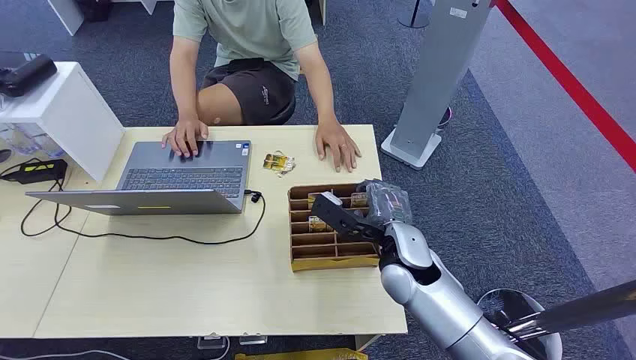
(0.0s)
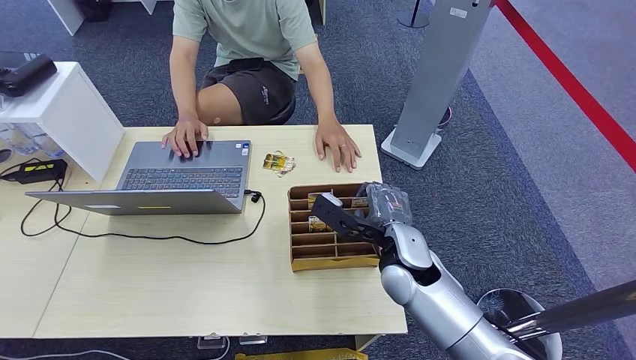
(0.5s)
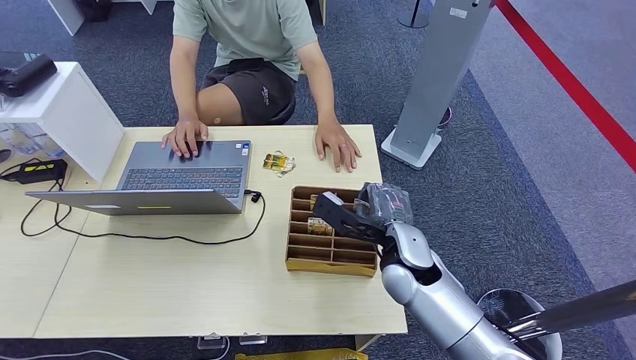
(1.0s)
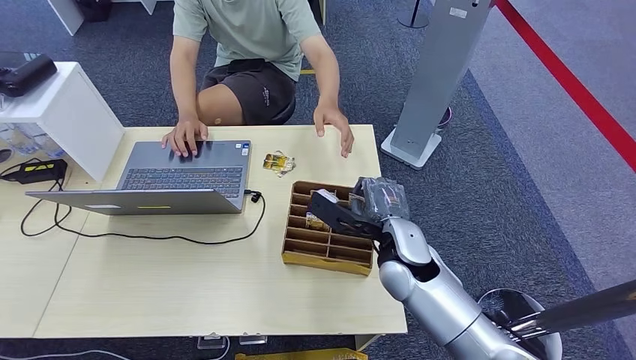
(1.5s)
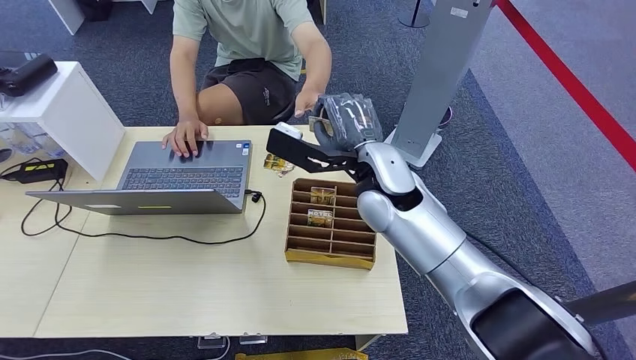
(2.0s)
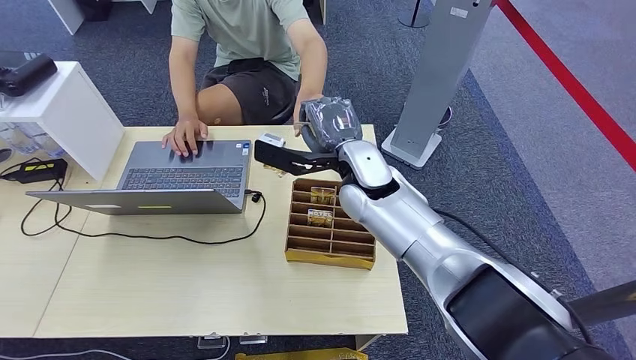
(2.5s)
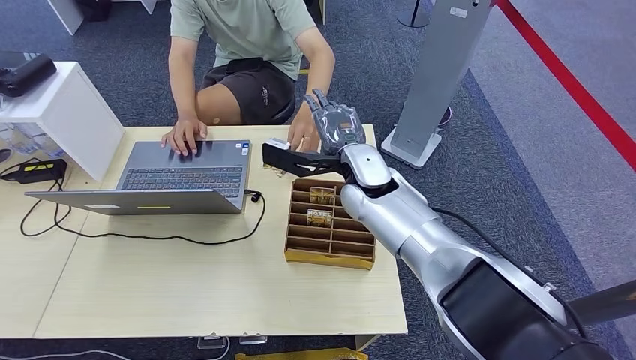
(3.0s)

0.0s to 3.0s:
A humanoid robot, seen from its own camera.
Step, 0.0s to 1.5s: Pick up the key card from the card box.
Step, 2.0s to 3.0s: Hand the key card to the target.
1.5s to 3.0s: The right hand goes about 15 cm forward, upward and to the left.

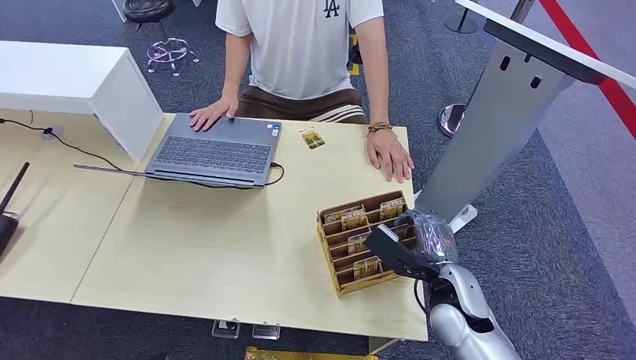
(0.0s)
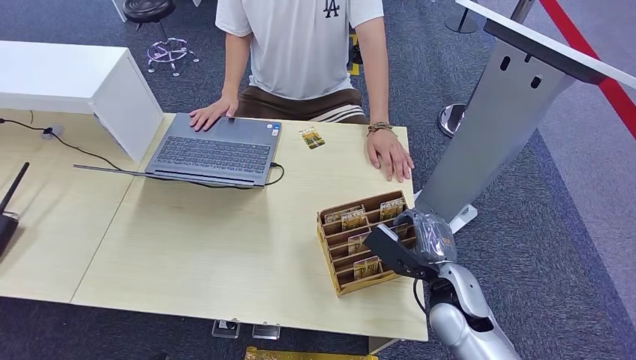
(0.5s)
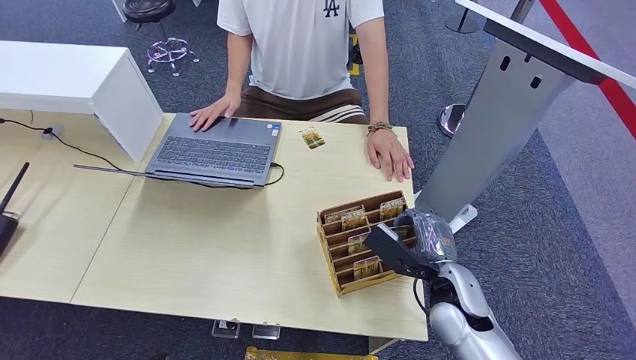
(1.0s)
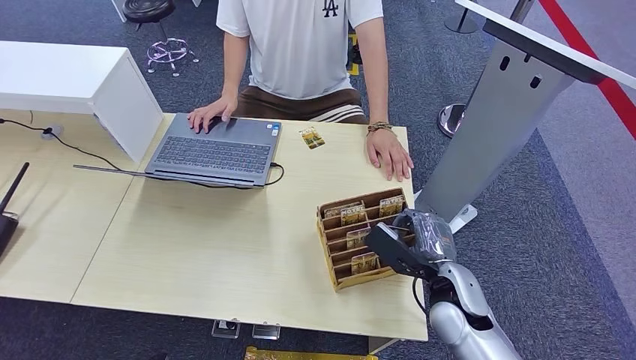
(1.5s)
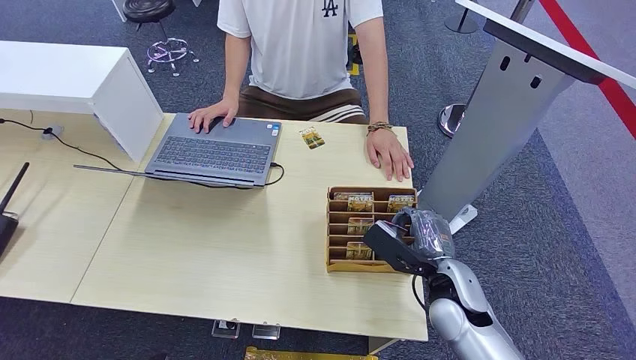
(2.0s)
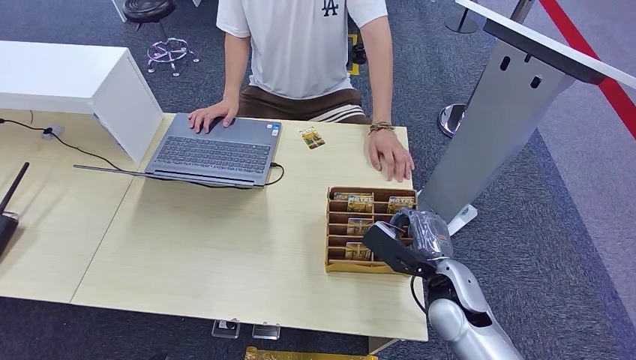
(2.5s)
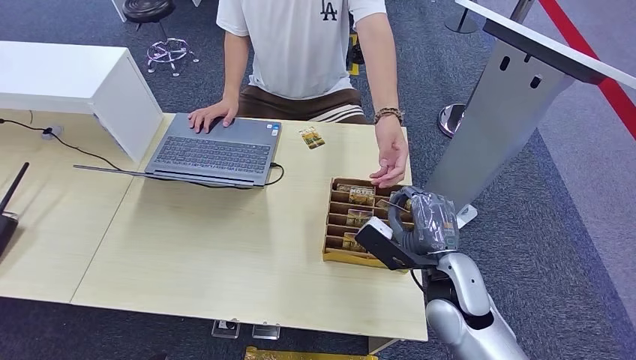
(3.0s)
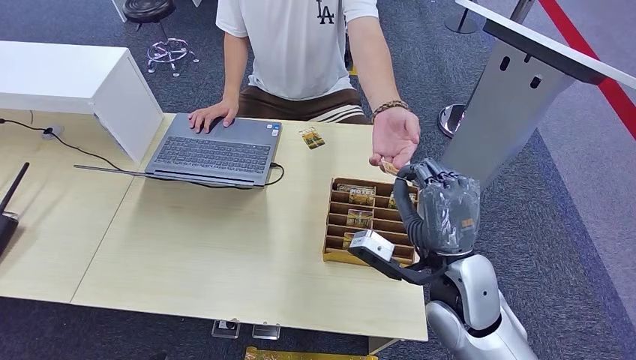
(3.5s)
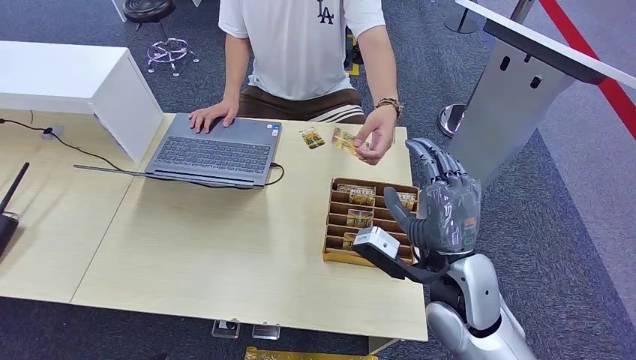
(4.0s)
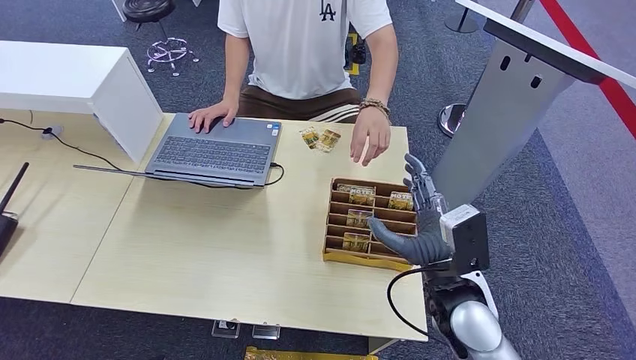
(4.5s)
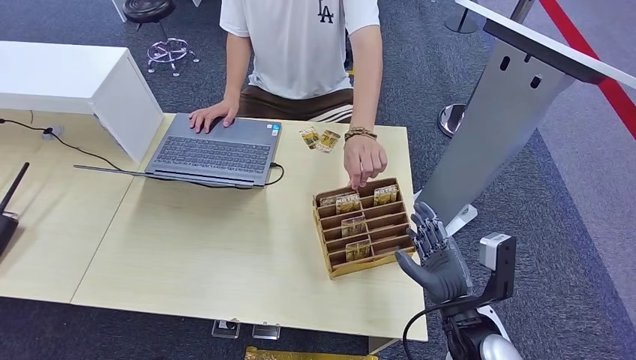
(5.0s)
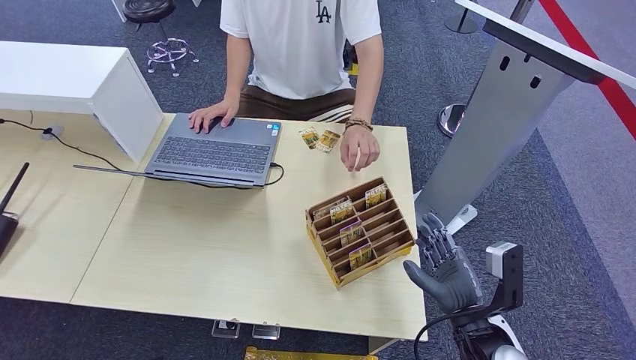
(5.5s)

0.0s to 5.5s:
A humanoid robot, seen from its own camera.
Step, 0.0s to 2.5s: Pick up the key card from the card box.
Step, 3.0s to 5.5s: Hand the key card to the target.
2.0s to 3.5s: The right hand goes about 10 cm upward.
3.5s to 5.5s: The right hand goes approximately 10 cm downward, to the right and backward.
